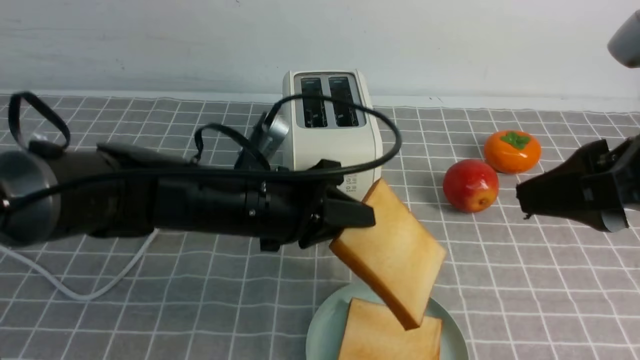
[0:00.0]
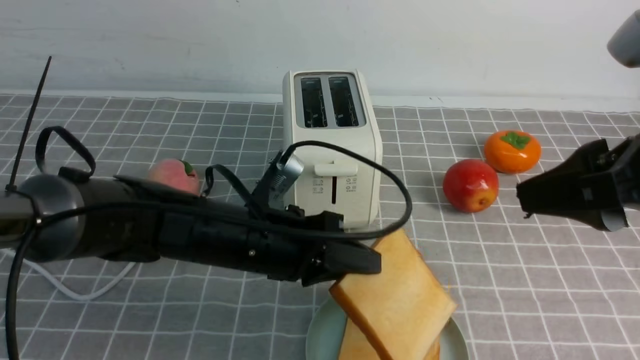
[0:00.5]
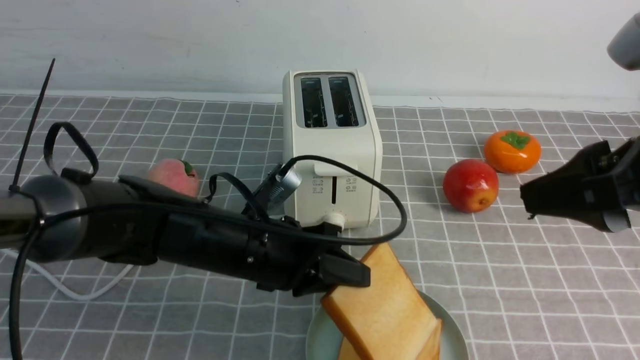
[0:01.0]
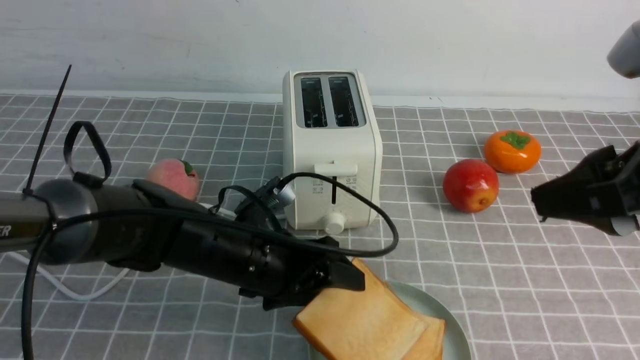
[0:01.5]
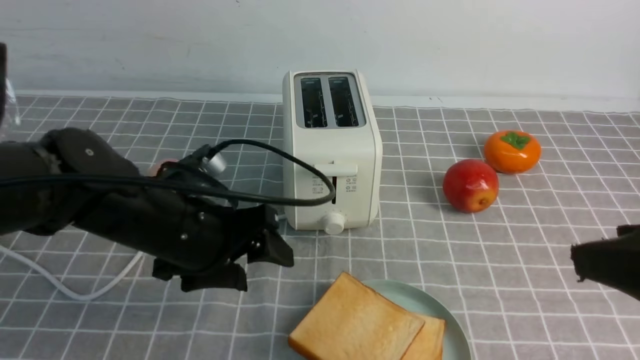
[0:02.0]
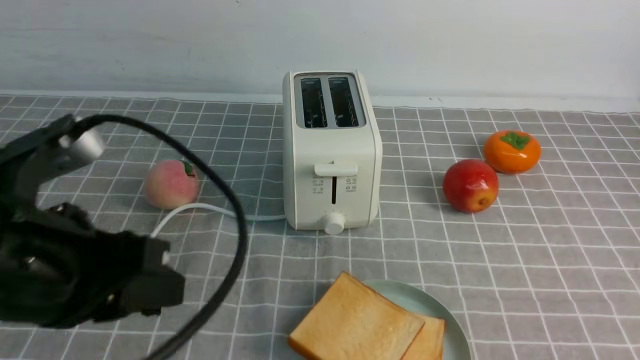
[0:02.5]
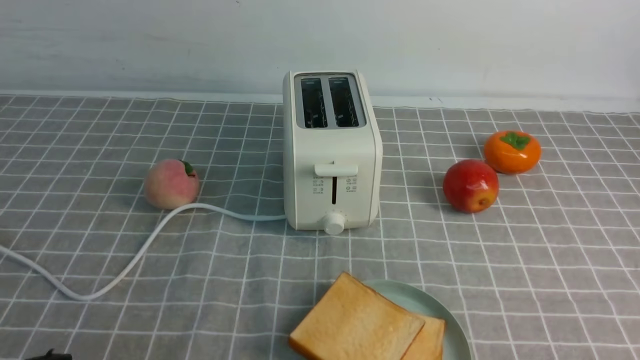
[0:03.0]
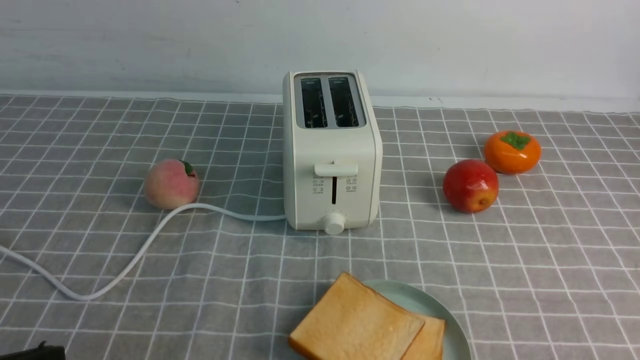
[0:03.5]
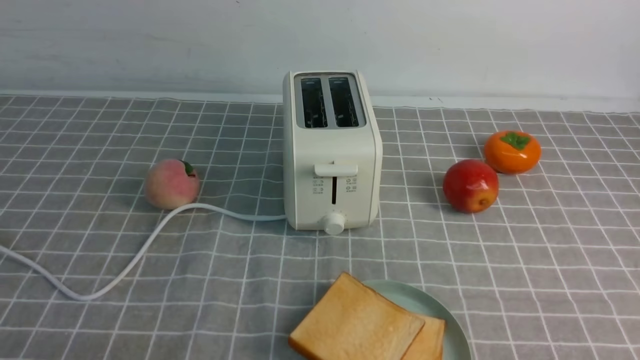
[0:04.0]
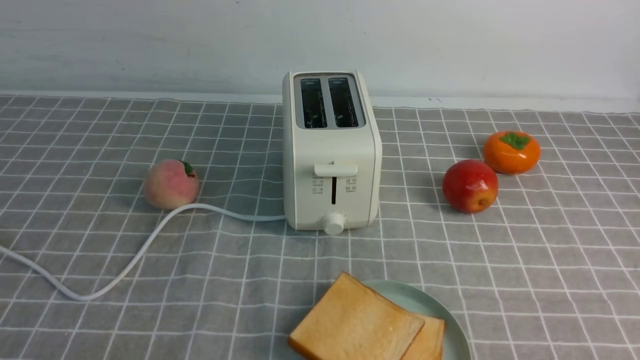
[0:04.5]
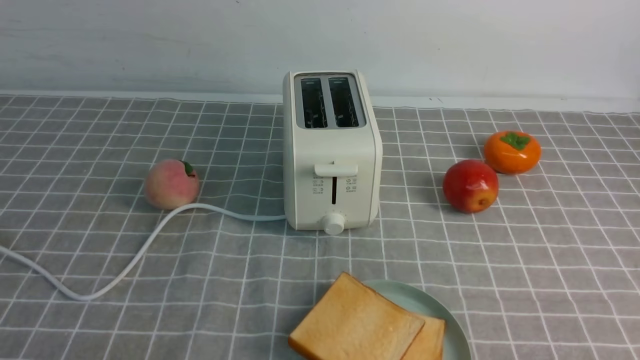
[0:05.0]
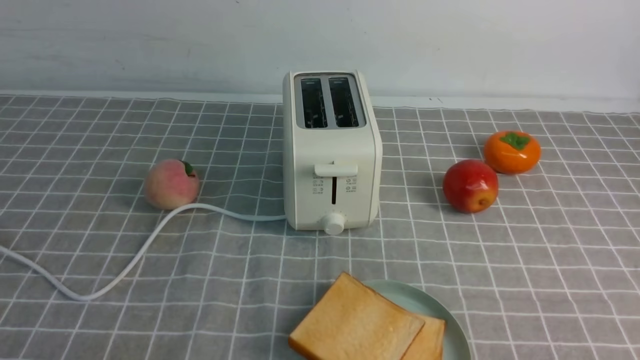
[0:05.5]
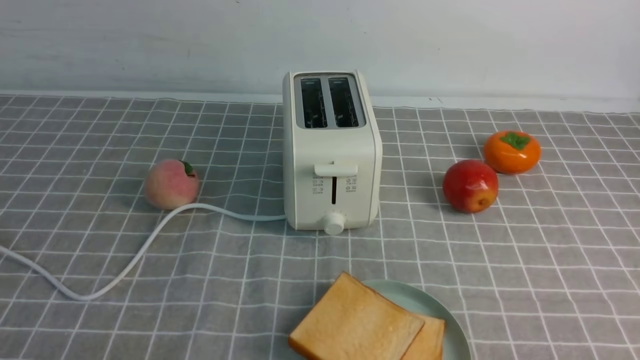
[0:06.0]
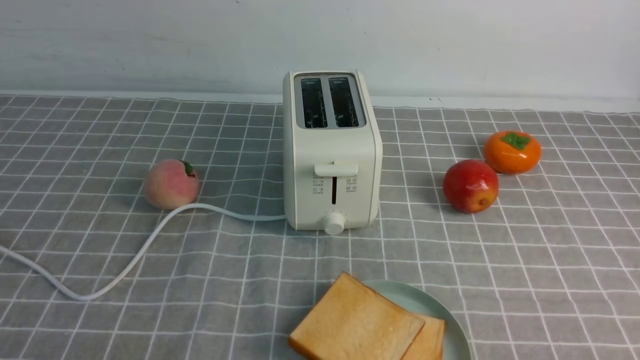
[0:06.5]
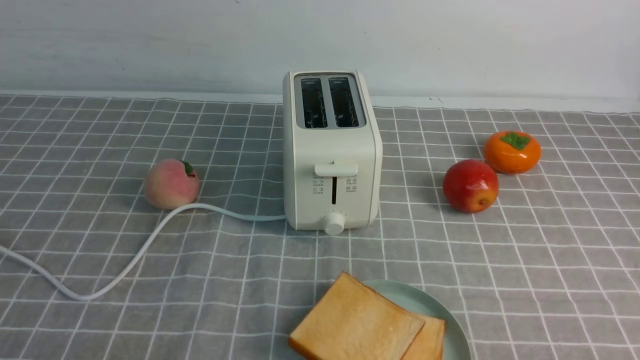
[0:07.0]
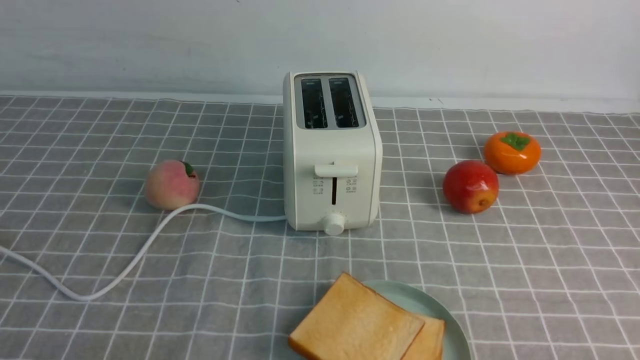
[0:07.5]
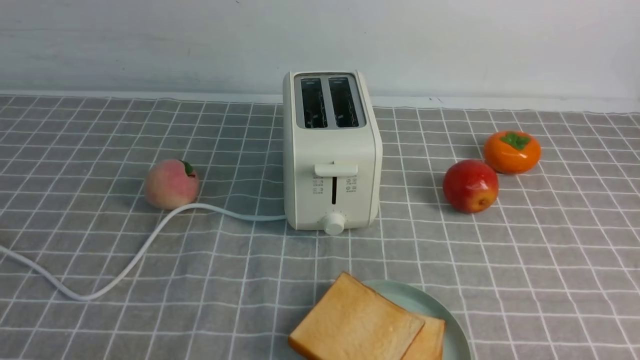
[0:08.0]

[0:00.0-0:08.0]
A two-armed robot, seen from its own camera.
Task of the whole recording: take toasted bread from bread machine on grey coffee table place on plate.
Step, 0:00.0 to 0:02.0: use the left arm to put a slice of bread into the empty plate.
0:00.0 to 0:02.0: The right gripper goes approximately 5 cm backward. Meanwhile the left gripper travels to the left by about 5 cm, and opens up.
0:02.0 to 0:04.0: The left gripper goes roughly 25 cm backward and to the left, and closes its fingers. Meanwhile the right gripper is displaced downward and backward by about 10 cm, and closes.

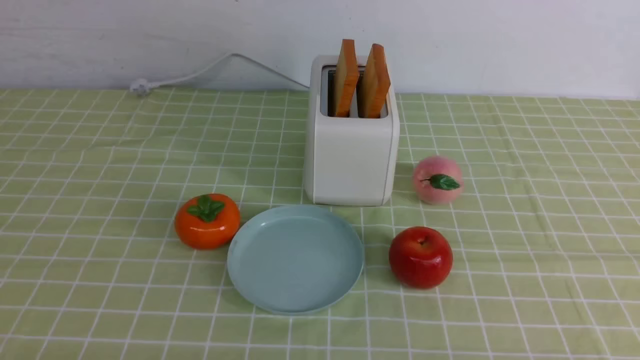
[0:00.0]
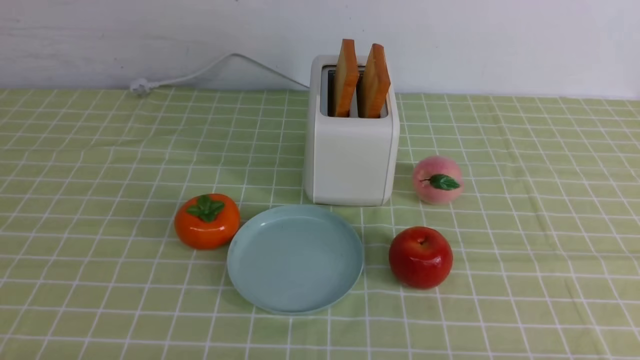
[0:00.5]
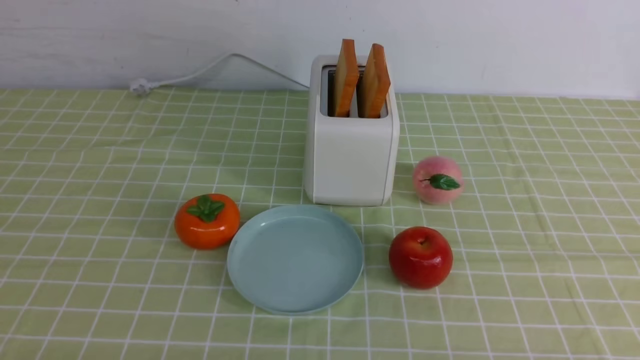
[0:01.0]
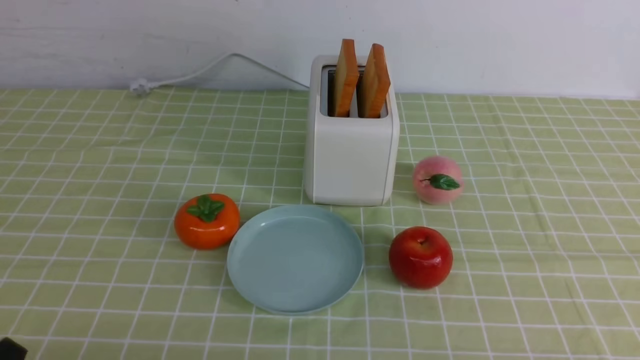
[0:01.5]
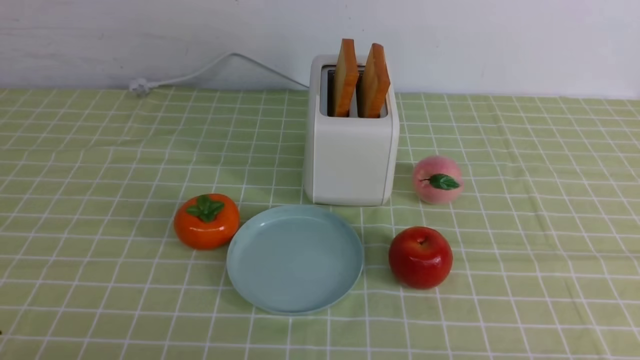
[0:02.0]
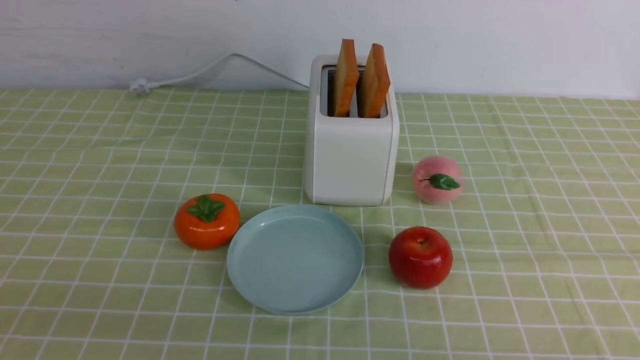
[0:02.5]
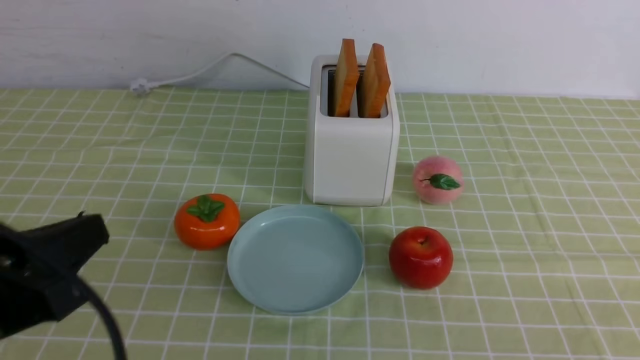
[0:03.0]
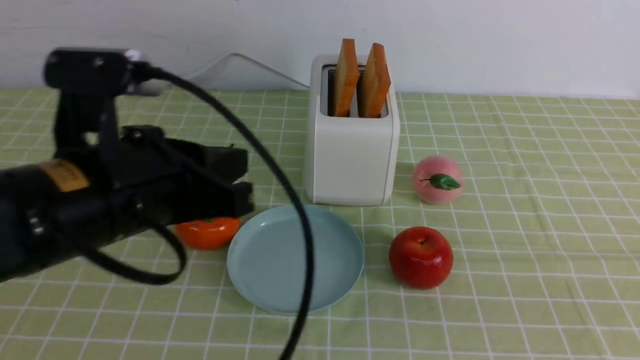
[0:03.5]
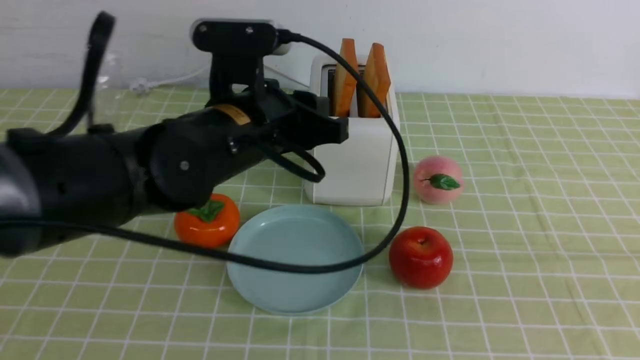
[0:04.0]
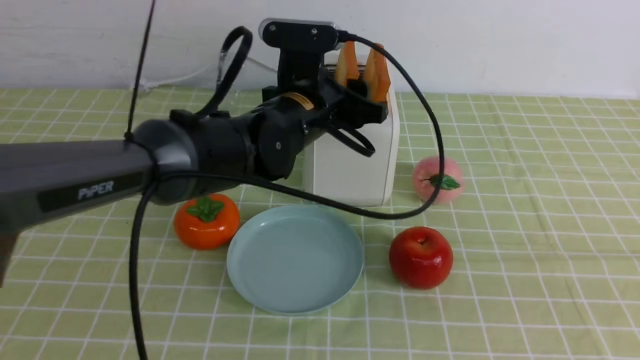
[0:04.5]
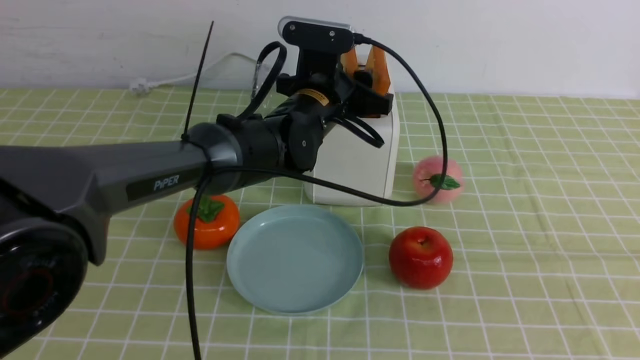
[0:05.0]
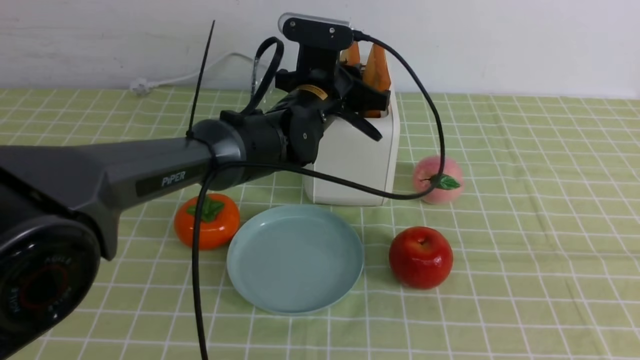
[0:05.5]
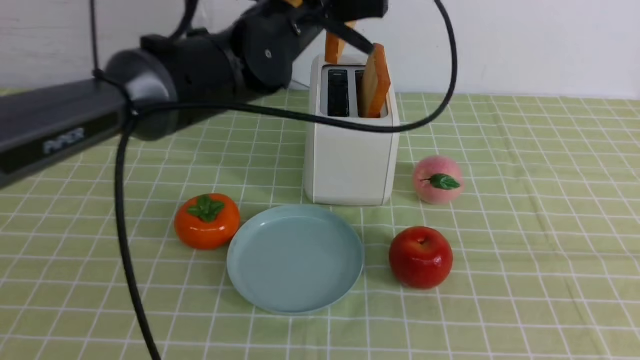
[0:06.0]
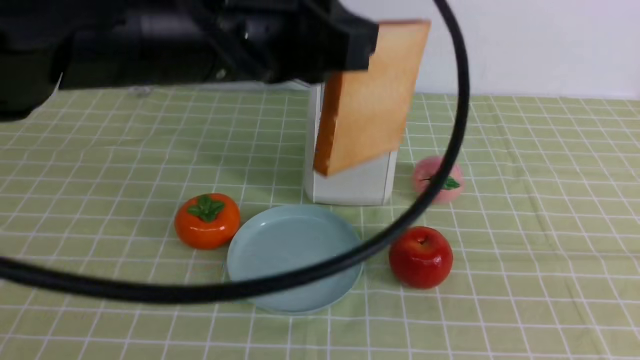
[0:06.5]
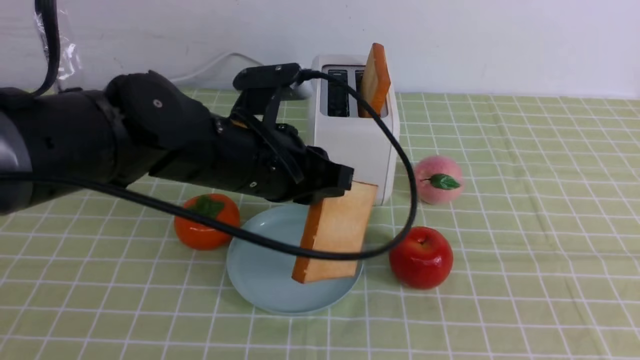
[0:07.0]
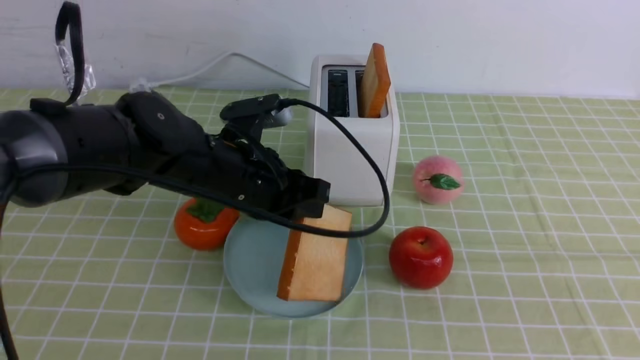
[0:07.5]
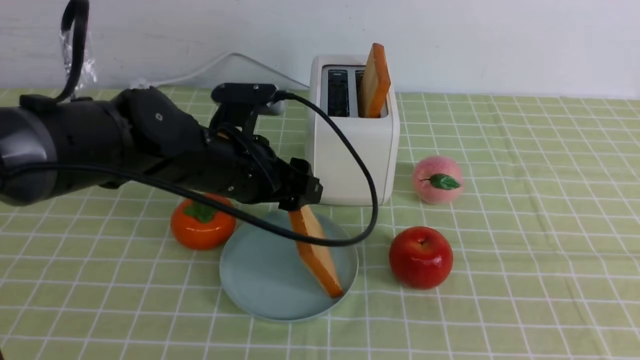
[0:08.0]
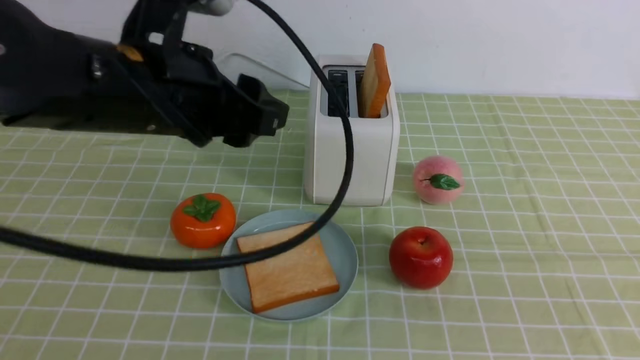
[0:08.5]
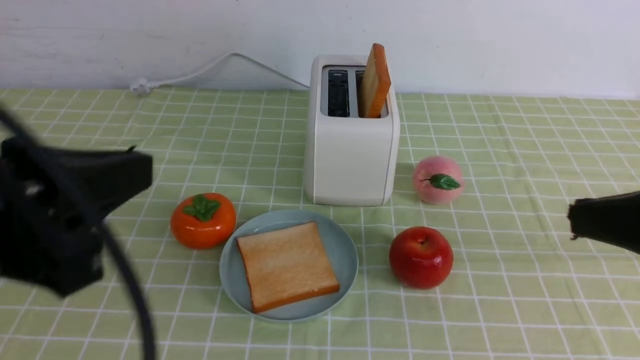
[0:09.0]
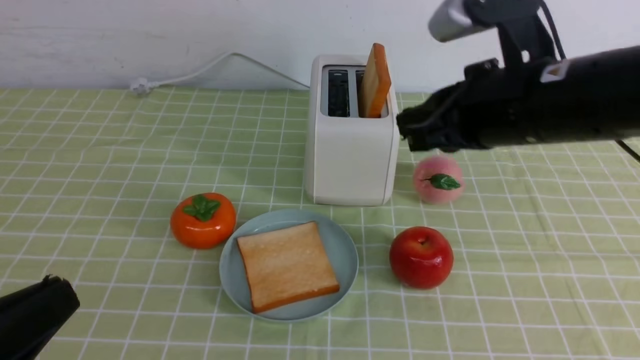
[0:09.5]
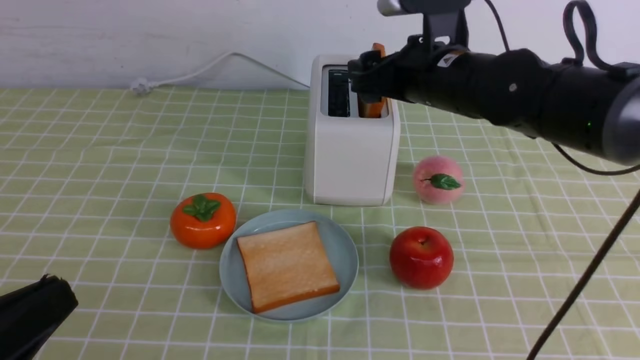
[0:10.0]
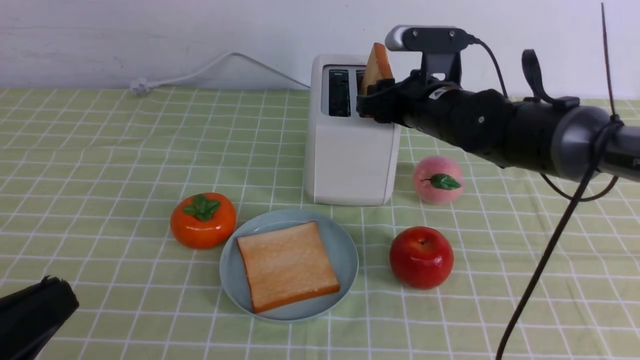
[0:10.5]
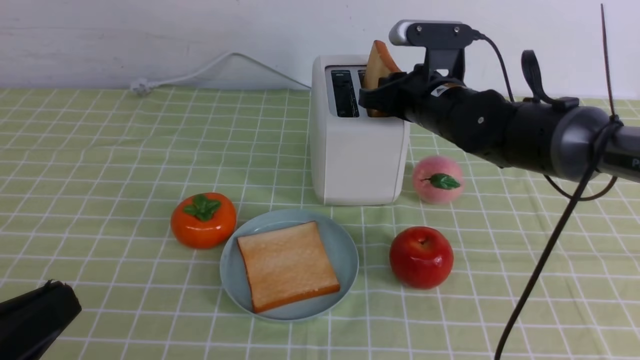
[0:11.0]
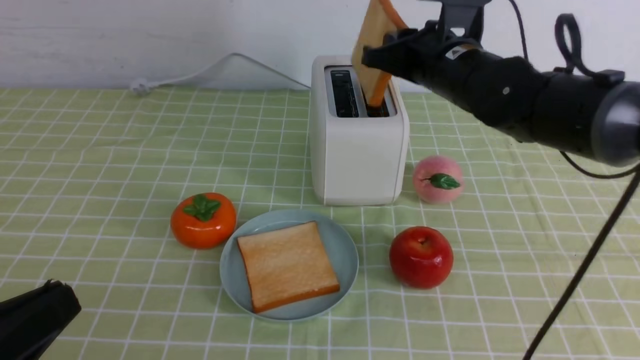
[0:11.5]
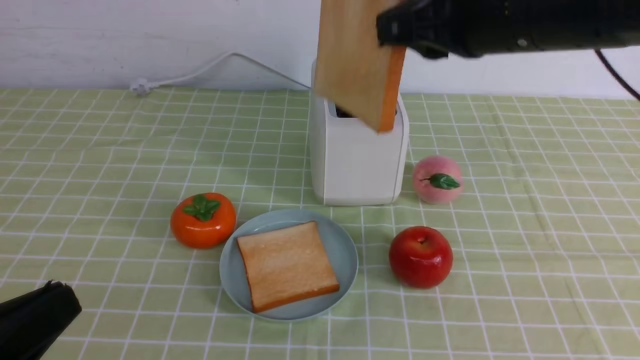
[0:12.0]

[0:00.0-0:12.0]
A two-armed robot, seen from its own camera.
Task of the whole recording: take toasted bread from bread machine on green coffee tablecloth place on plate.
Step, 0:00.0 to 0:06.0: use the left arm to take out a slice of bread.
Step, 0:06.5 to 0:09.0: use the left arm to put a slice of bread into the empty plate.
Step, 0:09.5 to 0:11.5: use the right arm to take out a slice of bread.
0:02.0 to 0:04.0: The left gripper moves forward and to the right, roughly 35 cm, and opens up. Meanwhile the right gripper goes approximately 20 cm upward.
0:04.0 to 0:06.0: The left gripper shifts approximately 10 cm forward and upward, and closes up.
0:06.0 to 0:08.0: The left gripper shifts roughly 15 cm downward, to the left and backward, and opens.
0:08.0 to 0:10.0: The right gripper goes approximately 35 cm forward and to the left, and opens; the left gripper is displaced backward and to the left by roughly 30 cm, and closes.
0:10.0 to 0:12.0: The right gripper travels backward and upward by approximately 15 cm, and closes.
